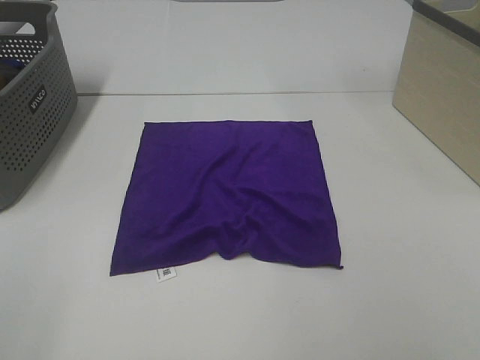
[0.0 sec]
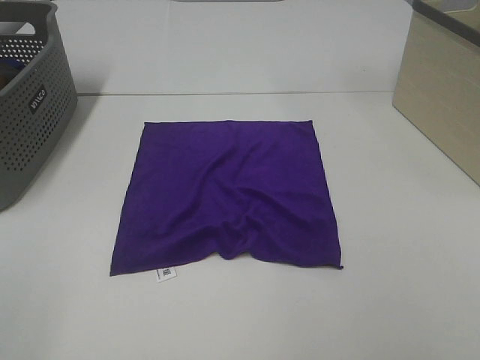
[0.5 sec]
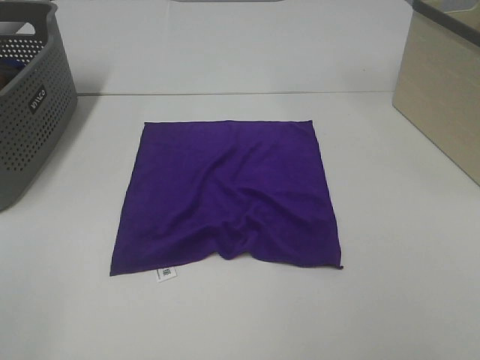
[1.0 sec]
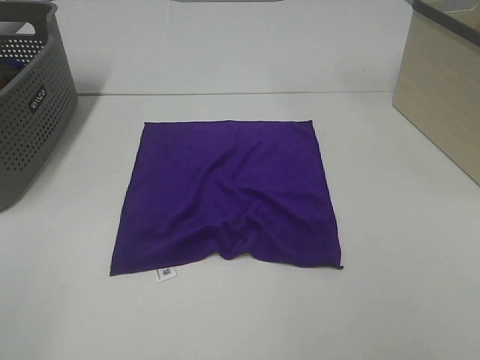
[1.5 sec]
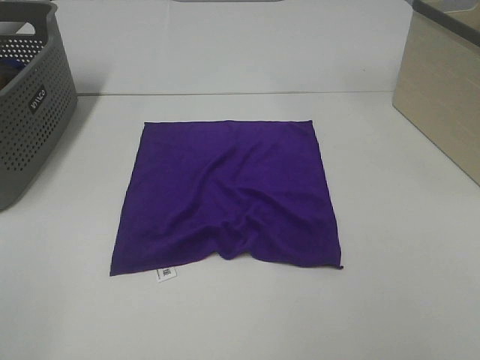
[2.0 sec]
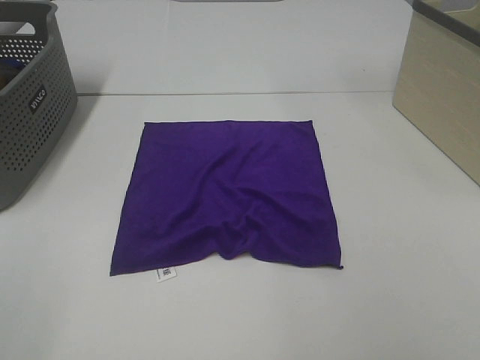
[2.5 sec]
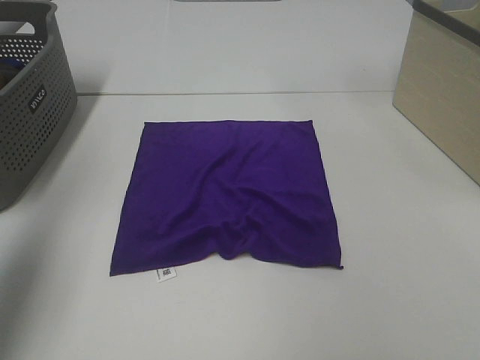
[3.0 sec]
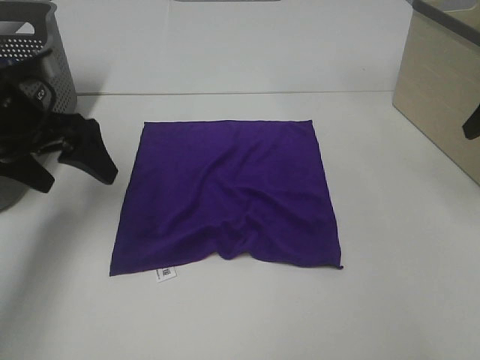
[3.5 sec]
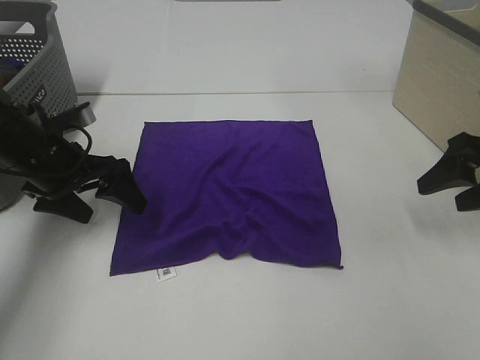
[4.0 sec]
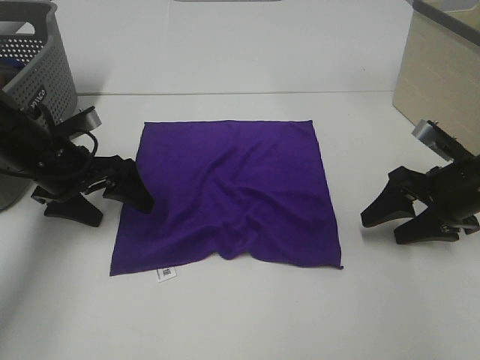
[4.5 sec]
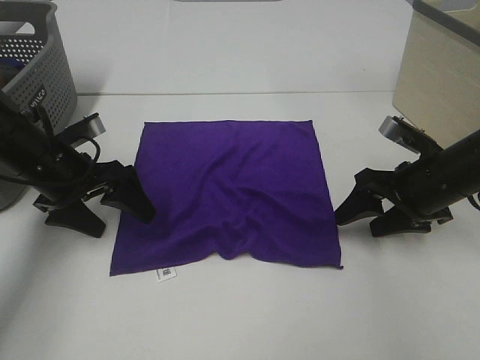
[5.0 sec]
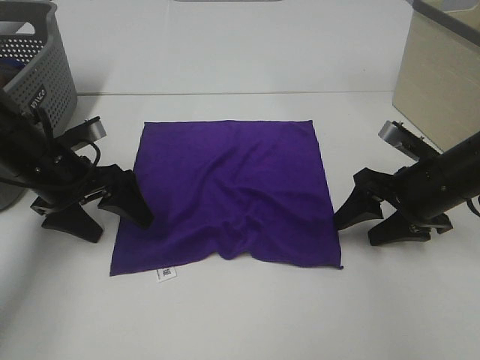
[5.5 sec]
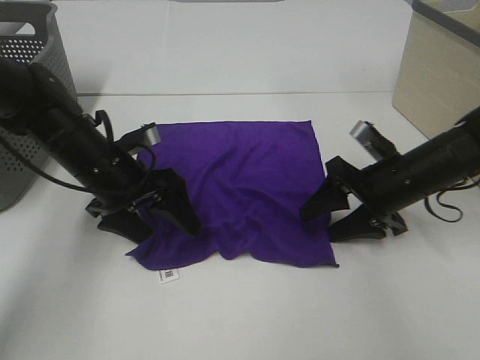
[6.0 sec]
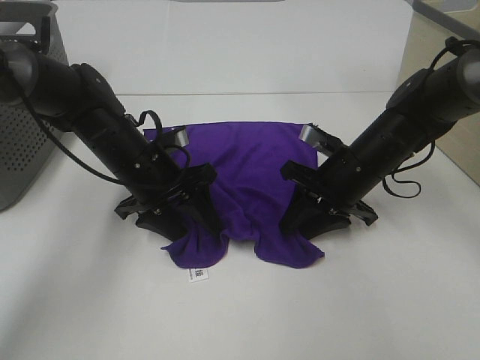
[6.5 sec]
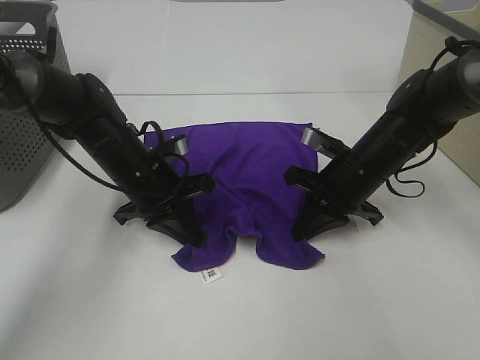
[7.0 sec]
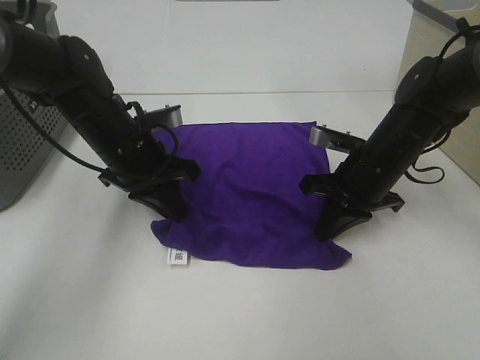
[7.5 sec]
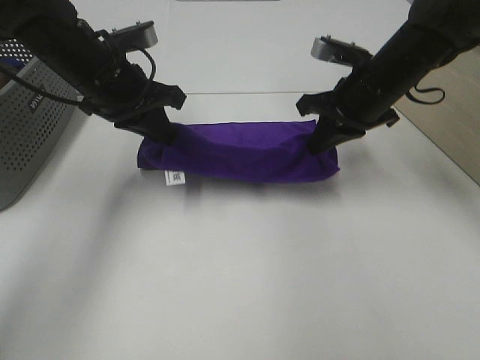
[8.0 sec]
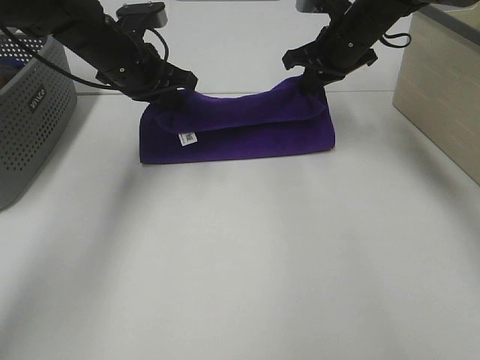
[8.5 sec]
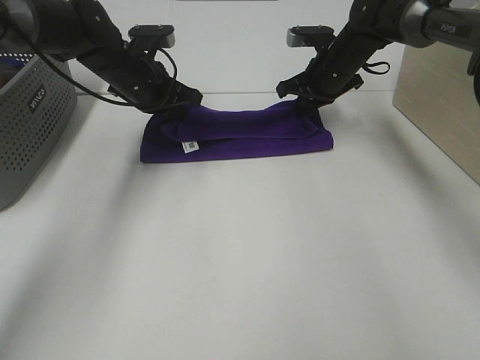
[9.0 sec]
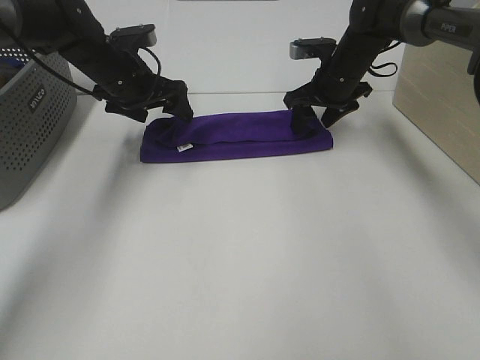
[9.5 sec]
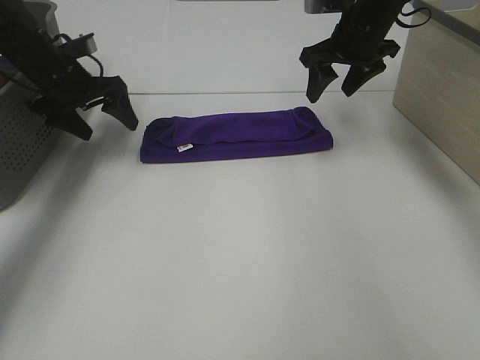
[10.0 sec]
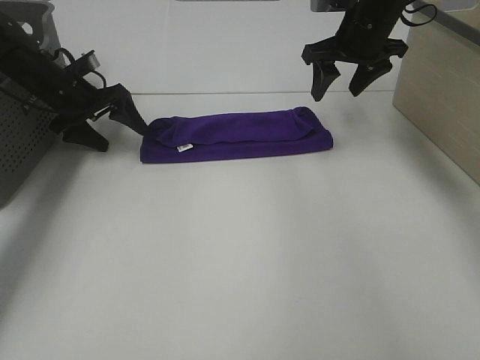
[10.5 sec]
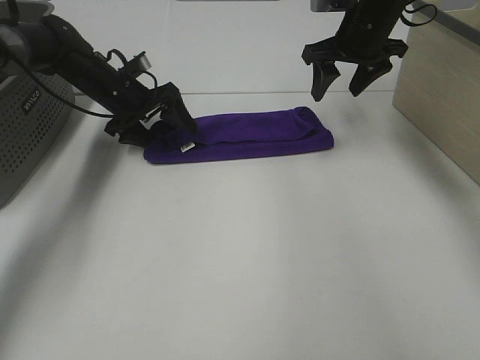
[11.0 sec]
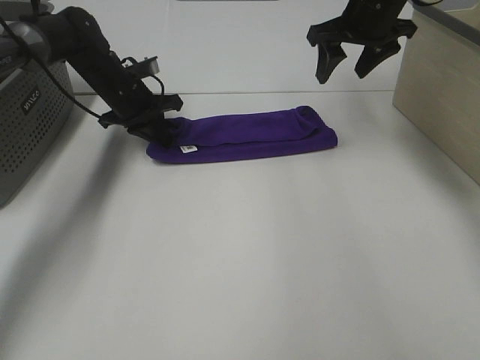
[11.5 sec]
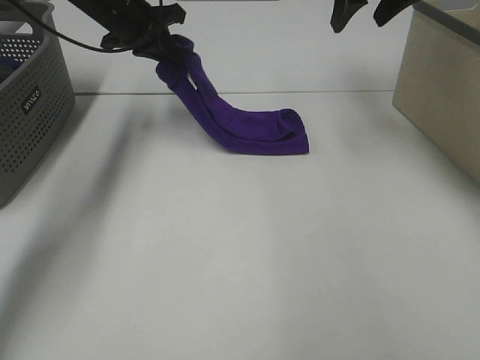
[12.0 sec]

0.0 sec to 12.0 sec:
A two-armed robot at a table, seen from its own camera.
Task of the whole recording: Fold towels.
Step, 0.0 sec to 7.0 sec: Left hand: grab the bottom left corner of purple towel.
Step, 0.0 sec to 7.0 sec: Right hand: grab the bottom right corner of purple towel.
Step, 7.5 sec to 9.0 sec: Left hand: fold the purple towel up.
Step, 7.5 sec to 9.0 sec: Right hand: fold the purple towel up.
0.0 sec to 2.0 sec: The two grippers keep their place.
2.0 sec to 4.0 sec: The grippers both shift forward and downward by about 35 cm.
4.0 sec to 6.0 sec: The right gripper is displaced to the left and downward by some 15 cm; the left gripper heads to the right, covering approximately 5 cm.
6.0 sec to 8.0 sec: The right gripper travels upward and forward by about 15 cm, and closes. The left gripper goes approximately 10 cm upward, and closes its fingers.
8.0 sec to 10.0 sec: The right gripper is displaced forward by about 10 cm, and opens. Meanwhile the left gripper goes approximately 15 cm to the left, forward and downward, and opens up.
10.0 sec to 12.0 sec: The left gripper shifts about 10 cm to the right and upward, and closes; the right gripper moves upward, some 10 cm.

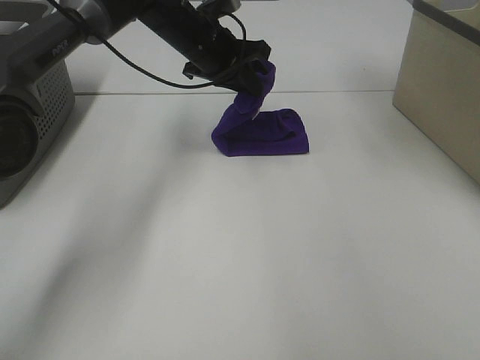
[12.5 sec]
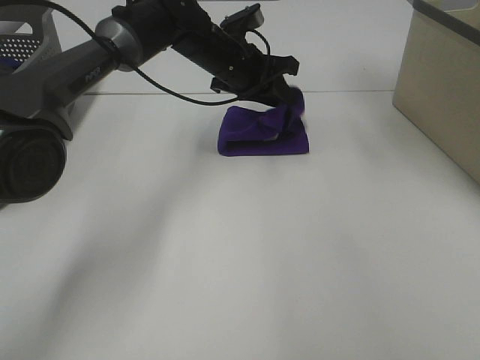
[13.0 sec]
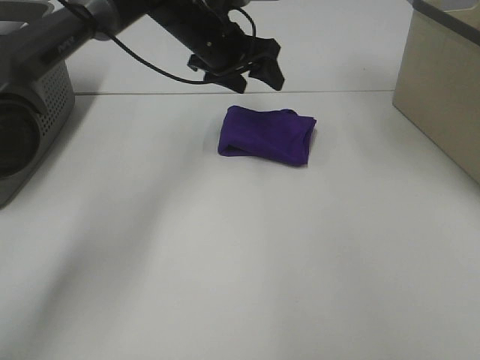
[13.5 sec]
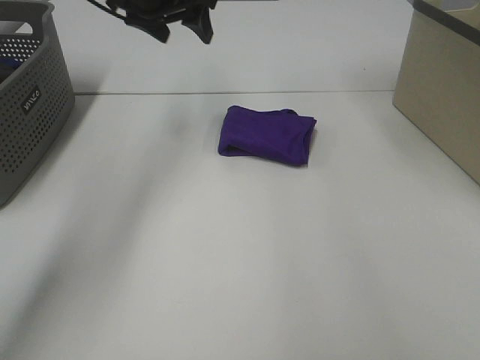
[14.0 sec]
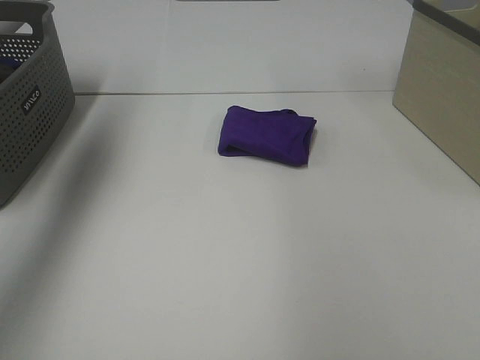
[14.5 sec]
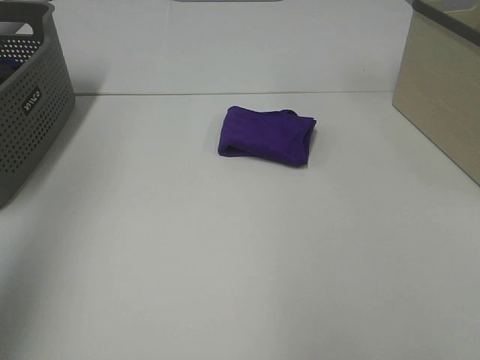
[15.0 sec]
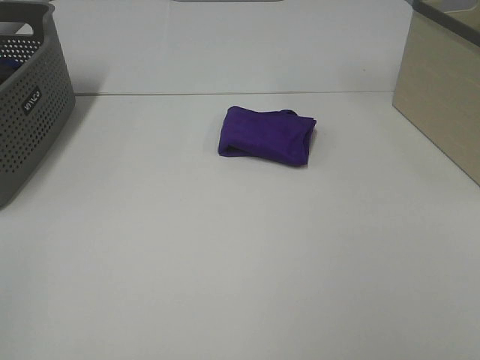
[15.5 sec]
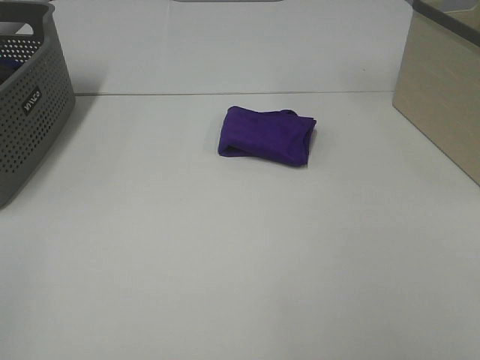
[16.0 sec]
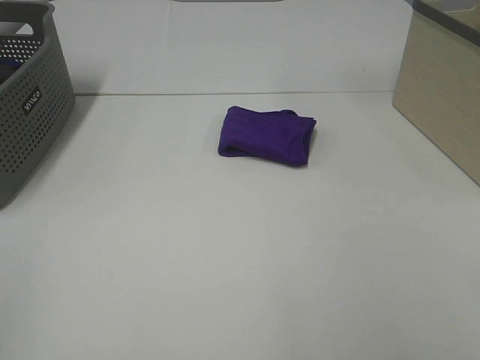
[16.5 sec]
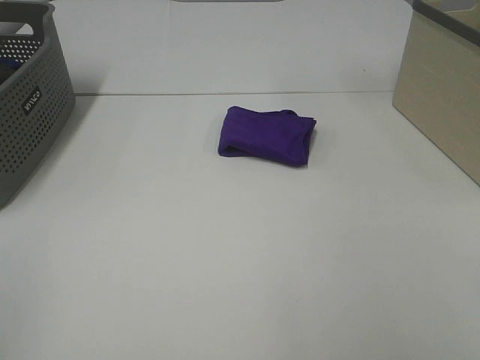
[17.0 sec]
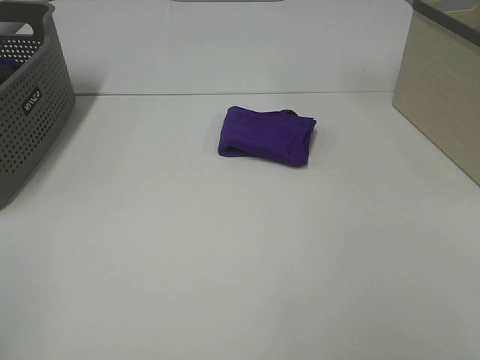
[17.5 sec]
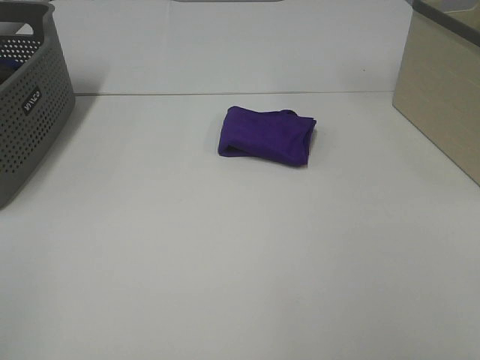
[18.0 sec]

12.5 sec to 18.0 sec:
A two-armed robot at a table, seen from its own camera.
Task of the whole recording: Fold towels.
12.5 sec to 14.5 sec: The left gripper travels to the left, upward and backward by approximately 35 cm, and opens, while the right gripper goes about 20 cm backward and to the right.
14.5 sec to 16.0 sec: The left gripper heads backward, covering approximately 40 cm.
16.0 sec to 18.0 sec: Neither gripper changes place.

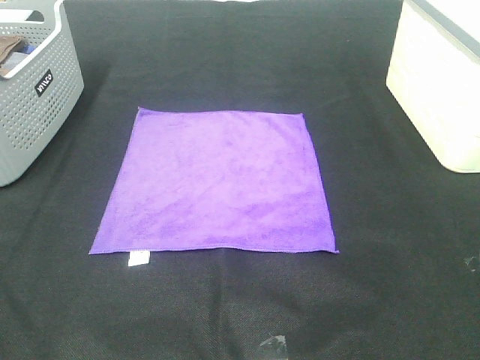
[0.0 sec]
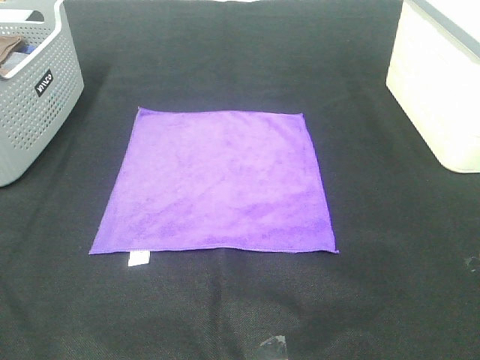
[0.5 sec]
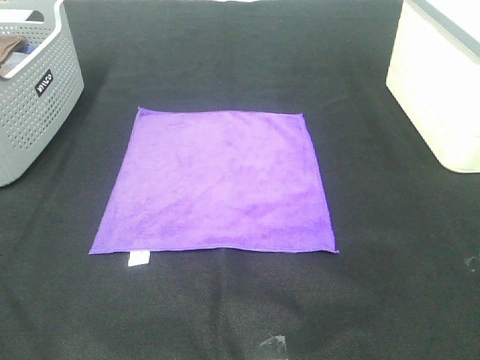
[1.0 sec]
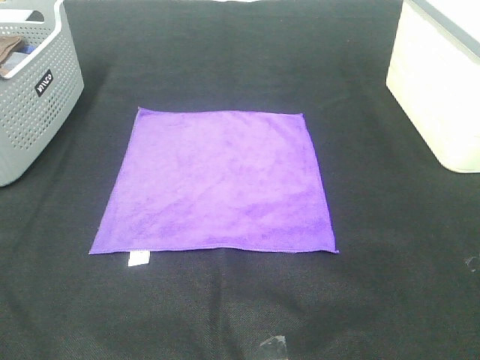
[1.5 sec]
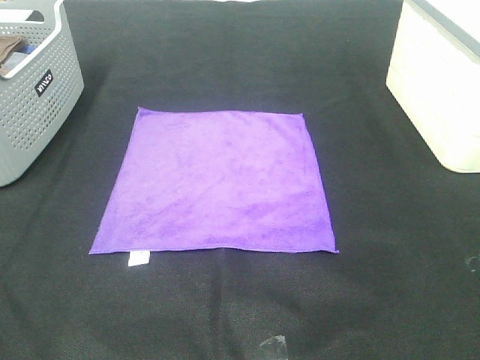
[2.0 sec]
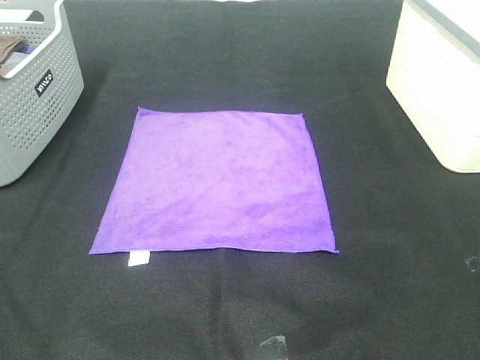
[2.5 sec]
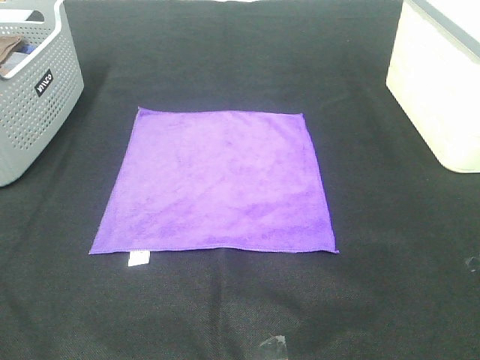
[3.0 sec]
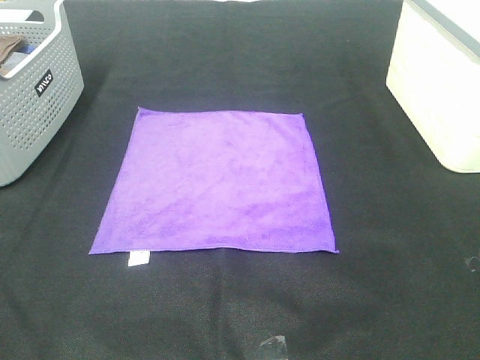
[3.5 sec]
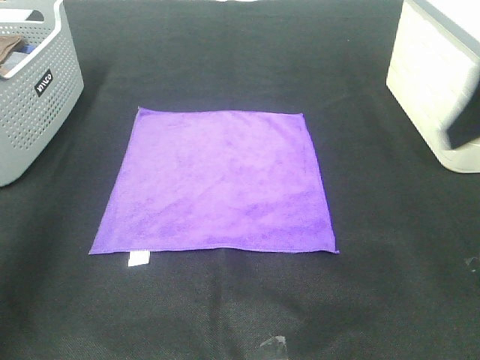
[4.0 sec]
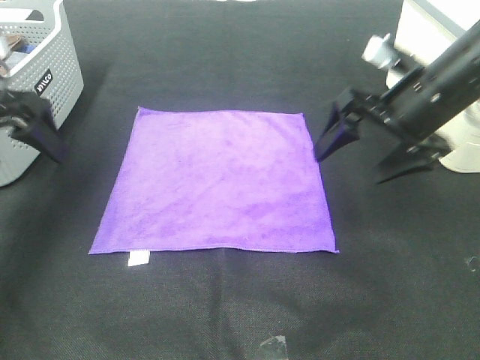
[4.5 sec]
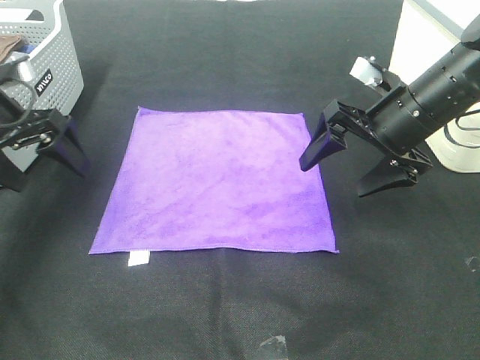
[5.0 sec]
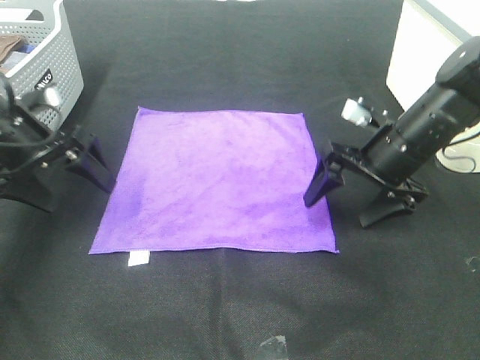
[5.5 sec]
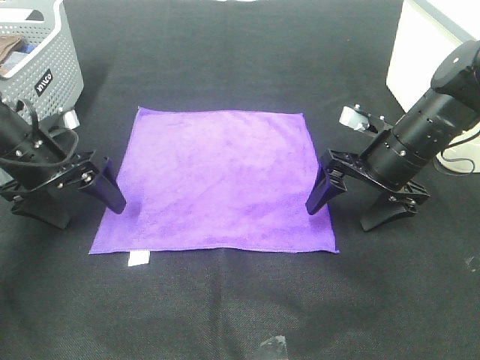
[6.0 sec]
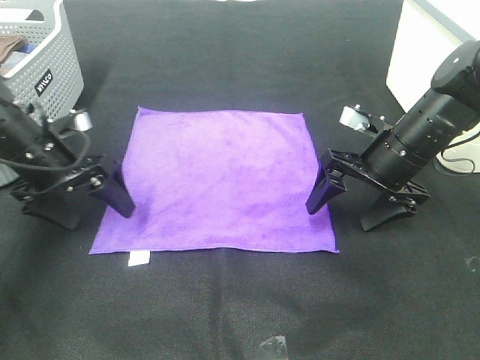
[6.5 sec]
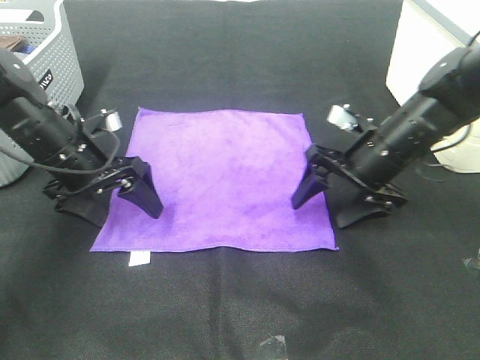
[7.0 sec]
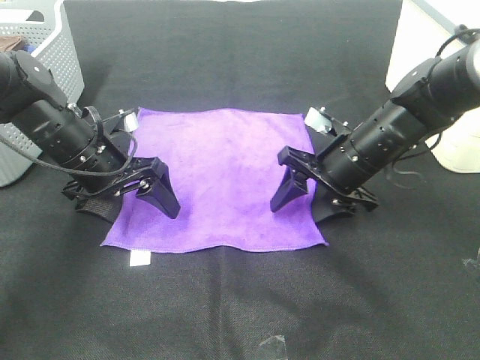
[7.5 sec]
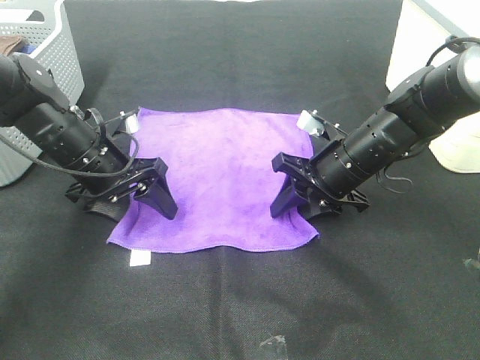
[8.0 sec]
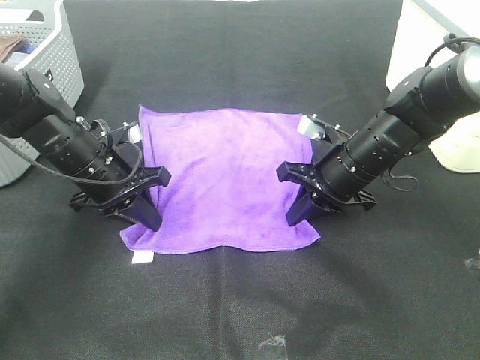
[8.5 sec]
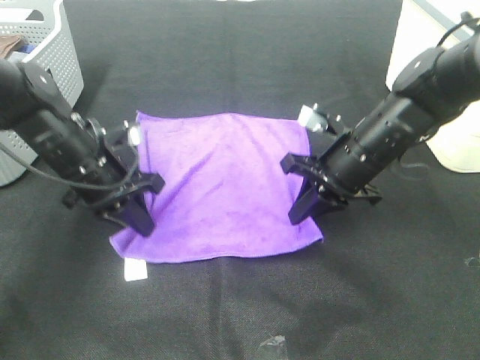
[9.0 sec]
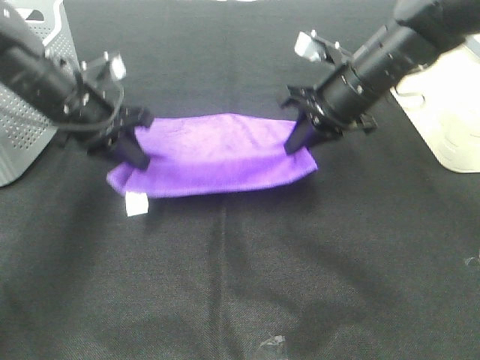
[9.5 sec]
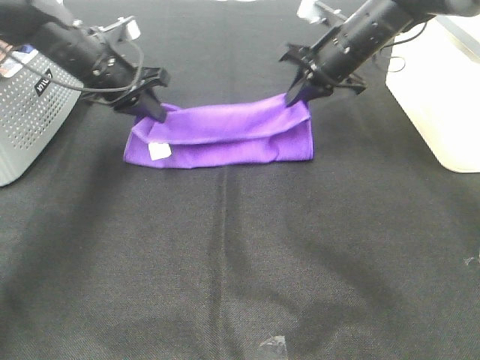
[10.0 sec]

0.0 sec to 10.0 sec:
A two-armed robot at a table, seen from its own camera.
Task of the whole recording: Fold towels.
Step, 0.0 sec to 8.5 sec: Left hand: grab the bottom left corner of purple towel.
Step, 0.0 sec to 8.5 sec: Right hand: grab the bottom right corner of purple towel.
0.0 sec to 2.0 sec: Both grippers stay about where they are.
2.0 sec to 4.0 sec: The two grippers go approximately 20 cm forward.
4.0 sec to 6.0 sec: The grippers both shift downward and forward by approximately 25 cm.
6.0 sec to 8.0 sec: The left gripper is displaced to the right by about 10 cm; the right gripper travels to the left by about 5 cm, and closes its fingers.
8.0 sec to 10.0 sec: Both grippers move forward and upward, about 15 cm. The right gripper closes its fingers, while the left gripper closes.
